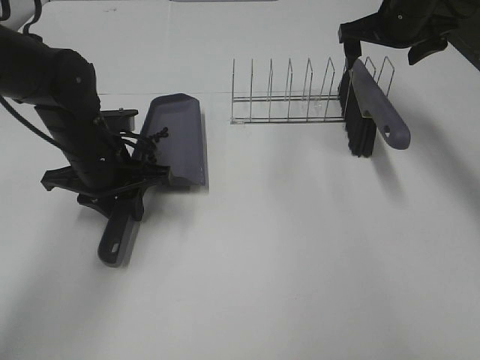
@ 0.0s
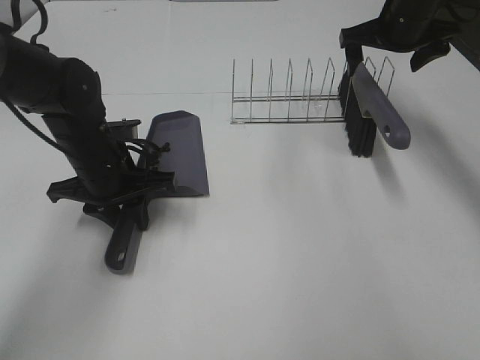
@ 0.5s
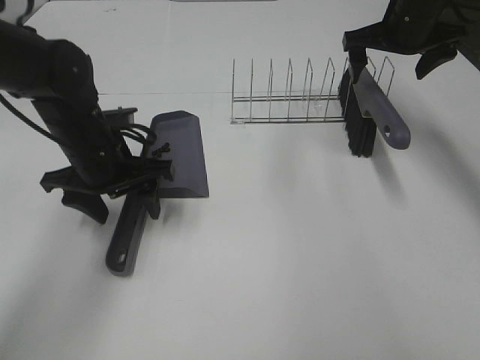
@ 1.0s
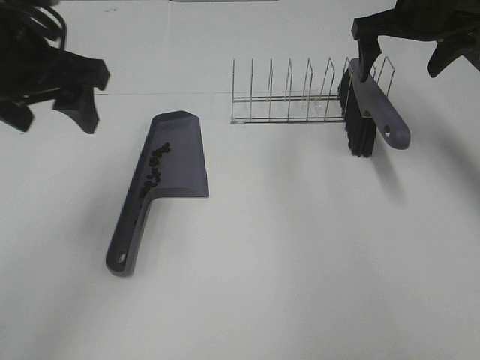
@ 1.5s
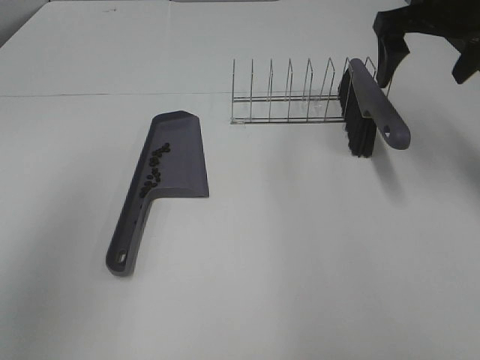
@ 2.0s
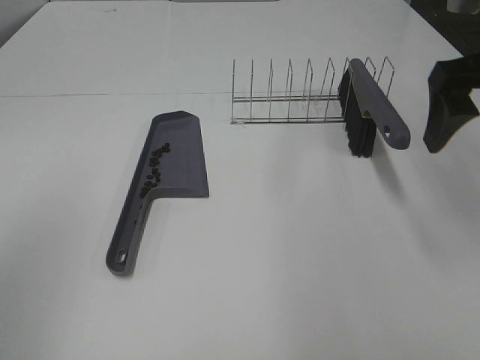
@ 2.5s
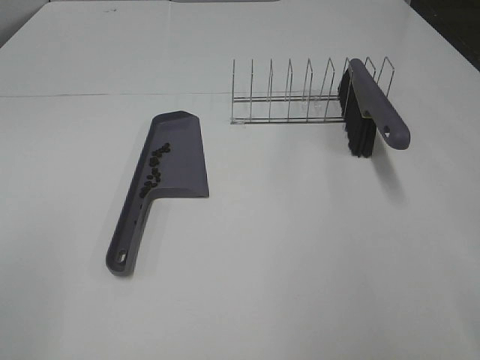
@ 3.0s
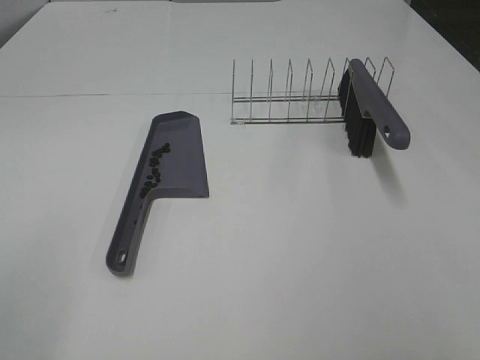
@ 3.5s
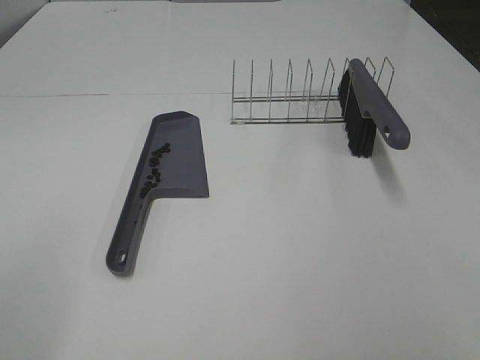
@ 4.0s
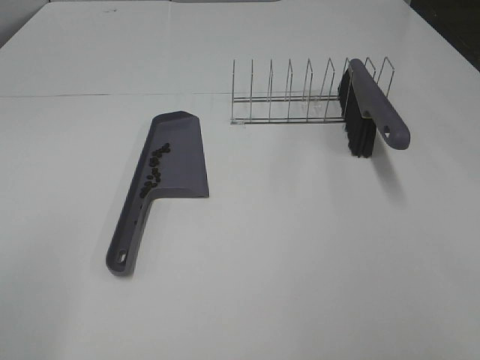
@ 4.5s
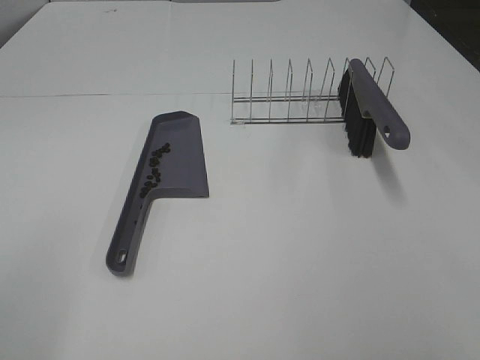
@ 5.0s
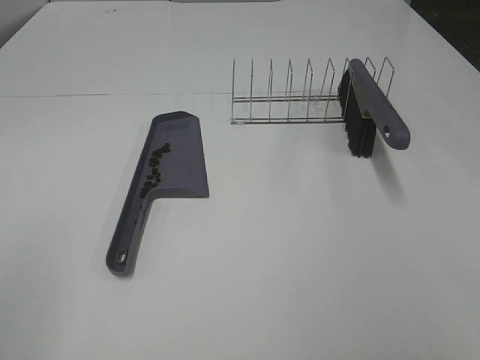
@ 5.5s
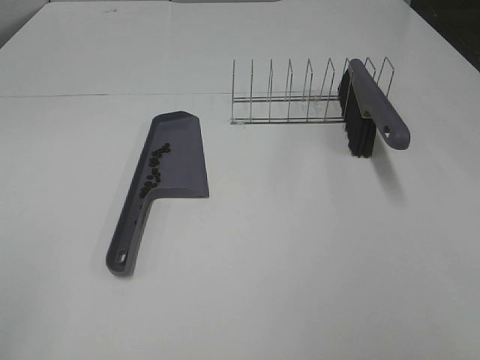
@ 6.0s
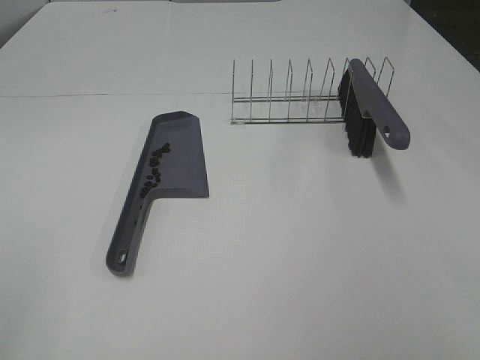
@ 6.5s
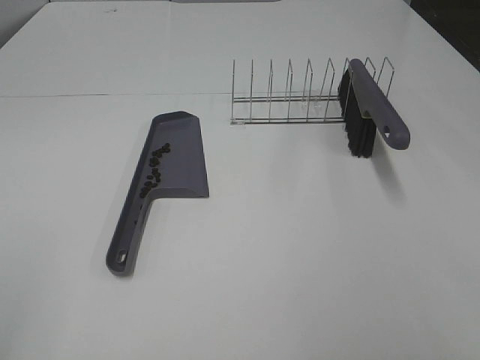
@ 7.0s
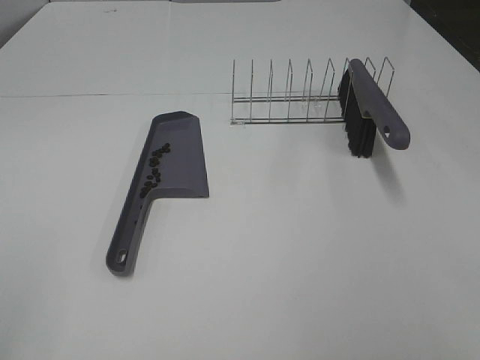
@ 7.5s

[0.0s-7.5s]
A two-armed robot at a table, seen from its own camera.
Task of the whole recording: Sweep Coffee Bean.
0.0s to 2.0s: The left gripper is displaced upward and backward by roughly 35 cm, and opens up. The right gripper heads backward and upward, covering some 10 cm.
2.0s to 4.0s: The right gripper goes about 40 cm backward; the left gripper moves downward and backward, about 15 cm.

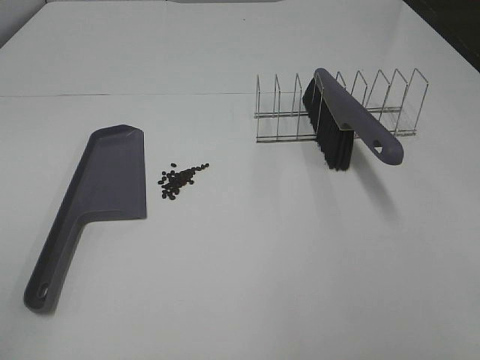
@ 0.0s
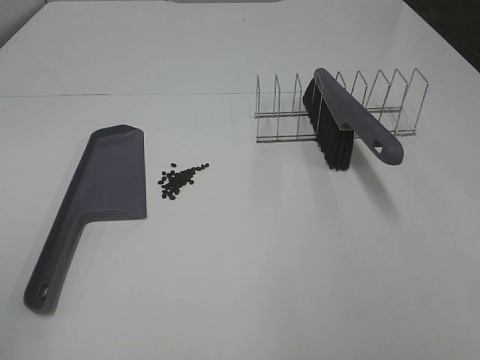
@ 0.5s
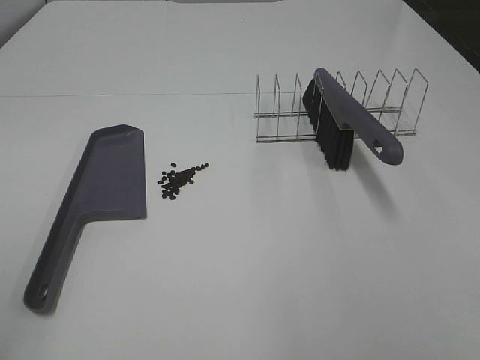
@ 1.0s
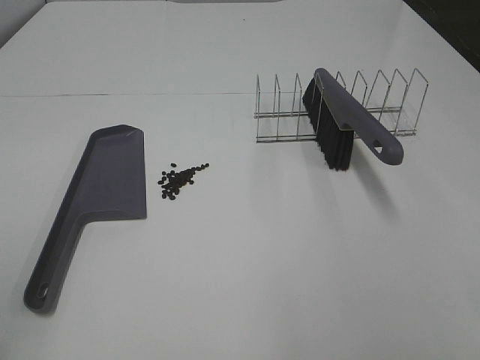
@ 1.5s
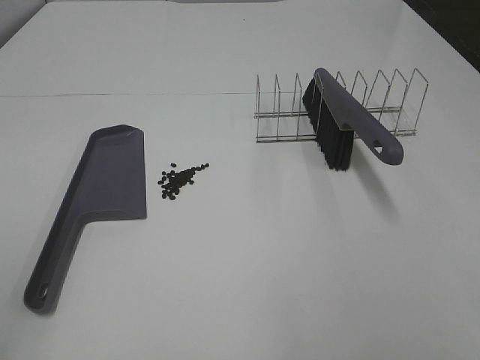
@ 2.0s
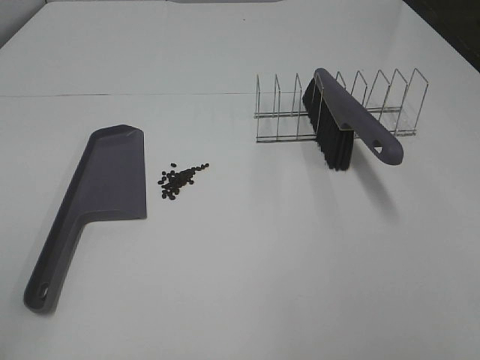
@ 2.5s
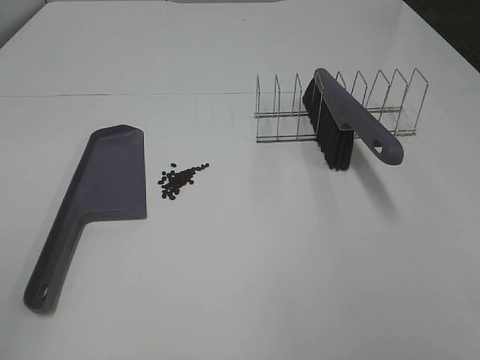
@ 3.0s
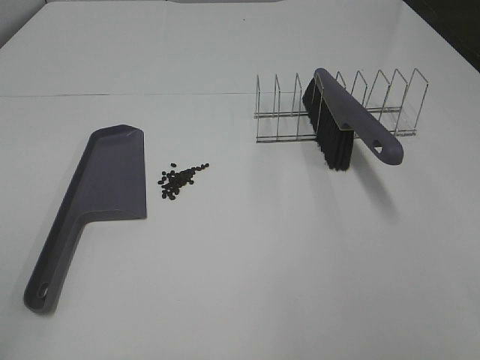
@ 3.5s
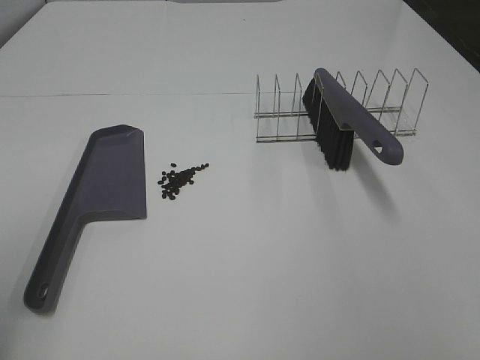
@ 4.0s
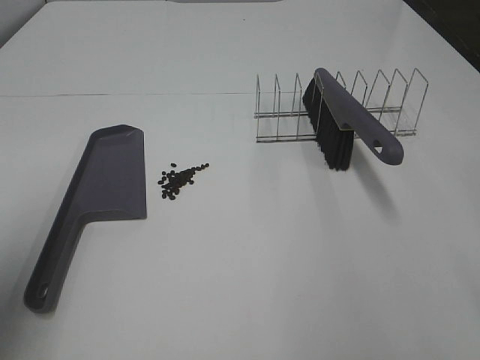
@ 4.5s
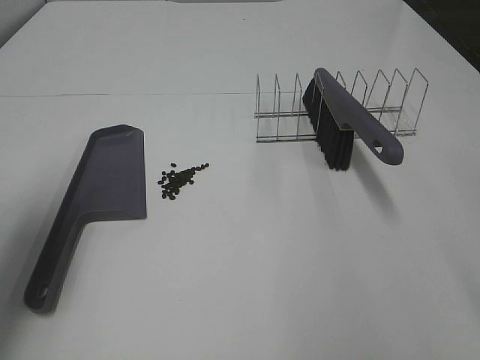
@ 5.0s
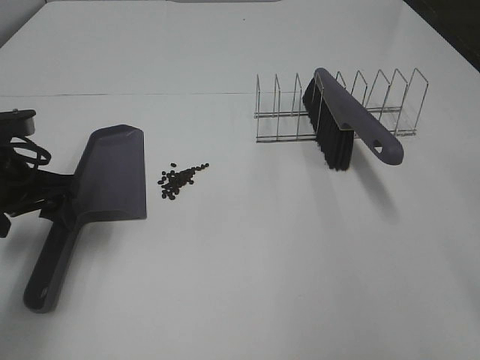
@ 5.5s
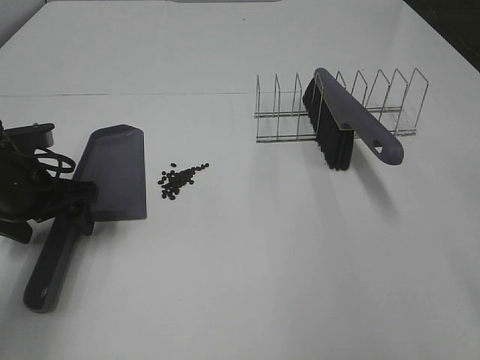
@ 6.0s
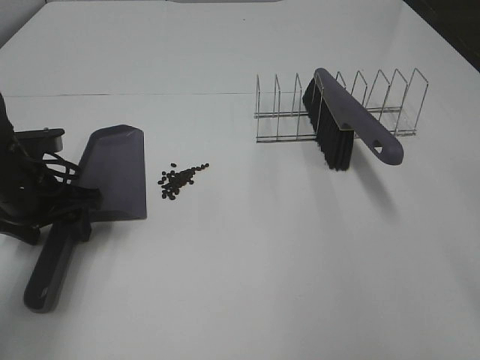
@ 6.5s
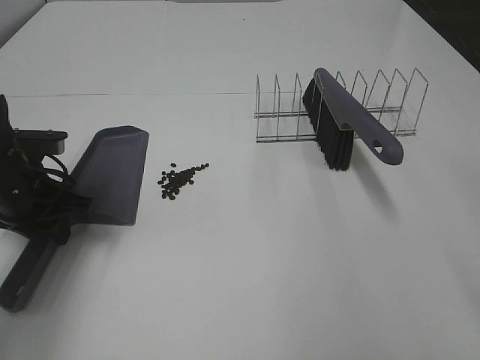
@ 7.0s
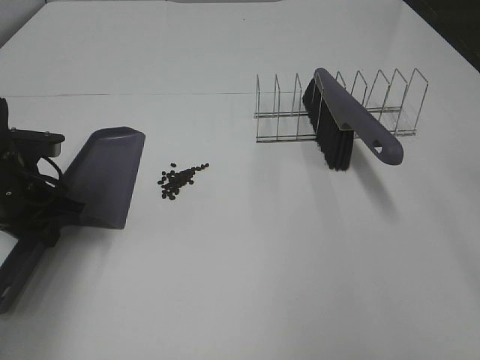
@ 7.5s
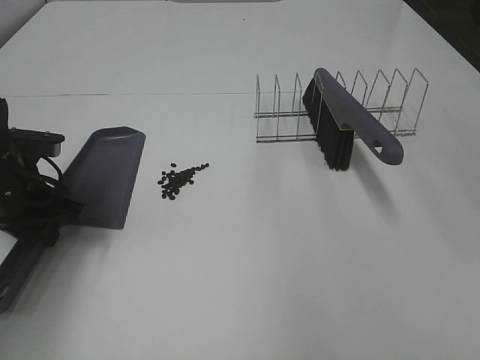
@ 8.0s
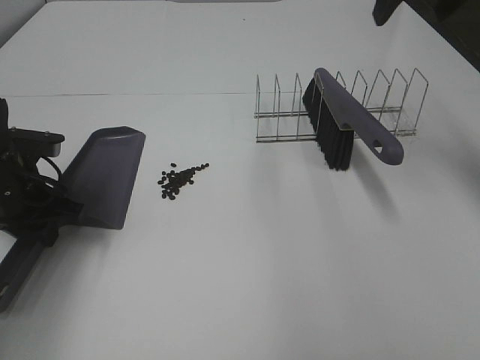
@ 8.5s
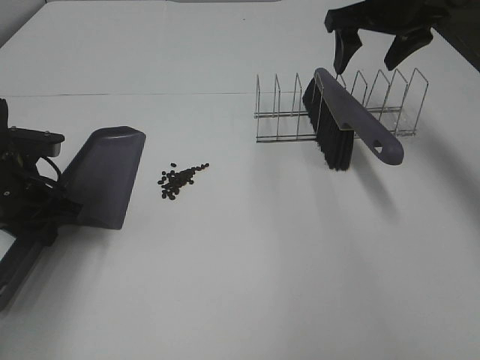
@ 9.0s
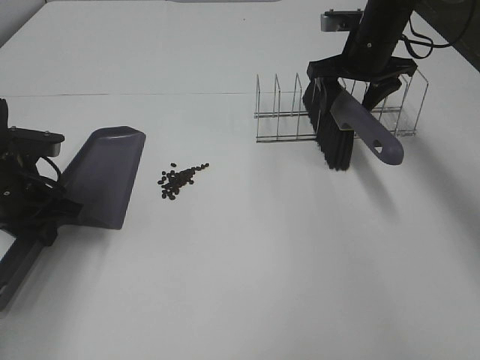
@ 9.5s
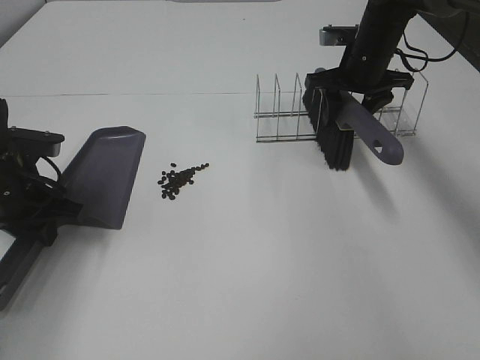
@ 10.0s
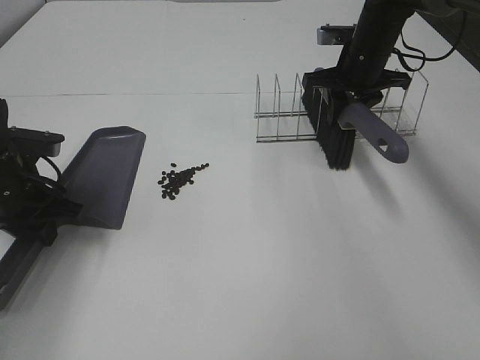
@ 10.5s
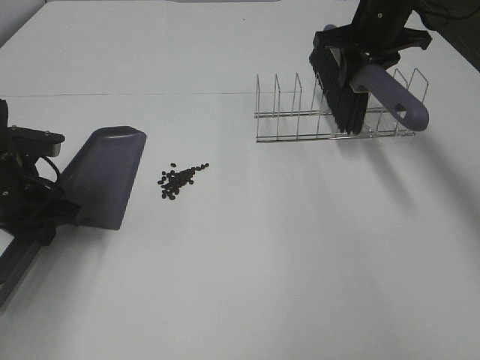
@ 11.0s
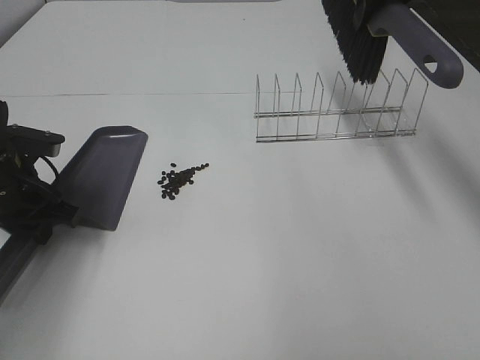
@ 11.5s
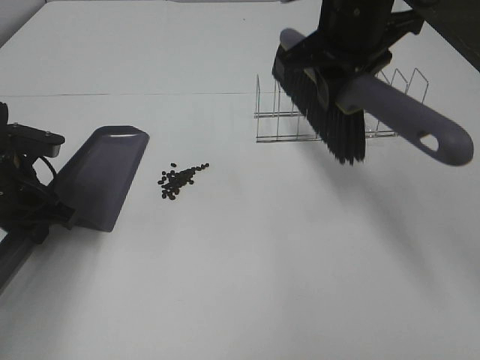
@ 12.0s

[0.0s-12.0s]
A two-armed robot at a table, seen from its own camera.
Task of the whole recording: Sweep Coffee Bean.
Step, 0.0s to 7.0s: Left hand: grab the dustpan.
Step, 7.5s to 10.0s: Right hand:grab the broom.
0.0s to 2.0s: Both grippers stay put.
4.0s to 6.0s: The left gripper shifts some 30 cm forward and downward.
6.0s to 8.0s: The left gripper closes its fingers.
8.0s to 10.0s: The right gripper is displaced forward and downward by approximately 35 cm, and closes.
10.0s to 12.0s: The right gripper moves backward, upward and to the left, about 20 cm, and closes its fingers.

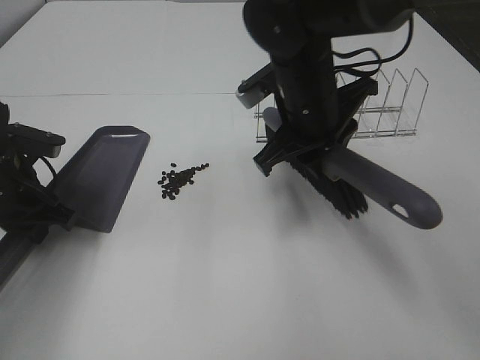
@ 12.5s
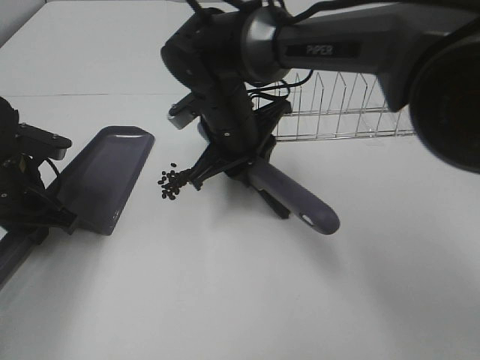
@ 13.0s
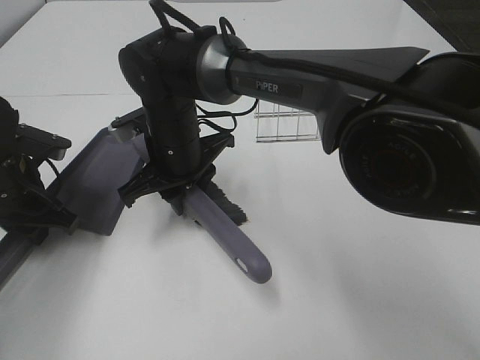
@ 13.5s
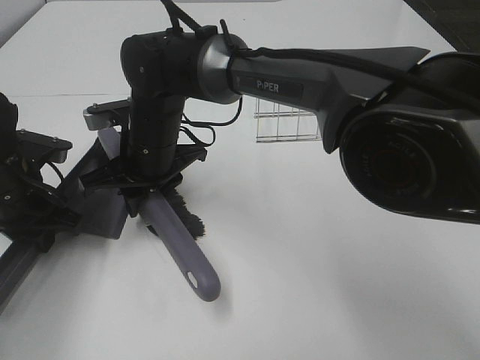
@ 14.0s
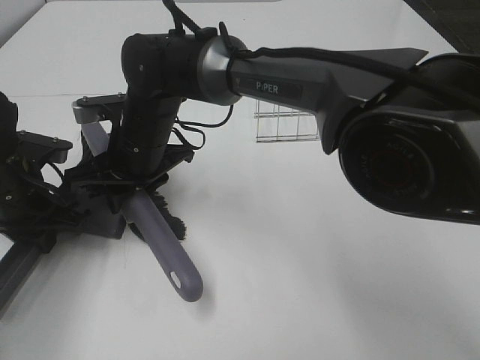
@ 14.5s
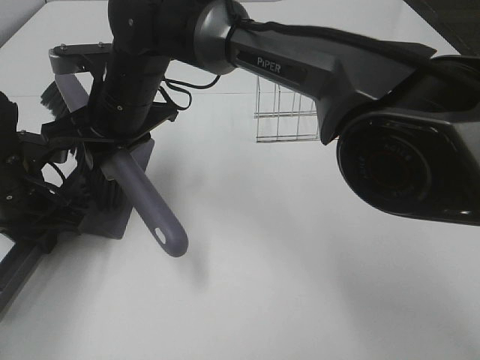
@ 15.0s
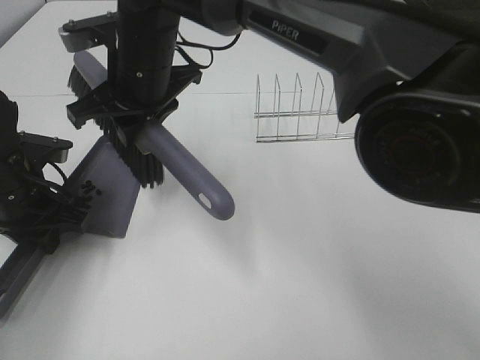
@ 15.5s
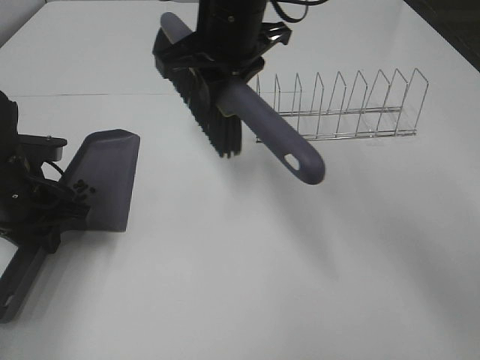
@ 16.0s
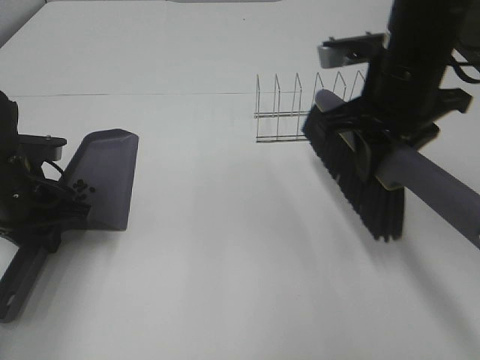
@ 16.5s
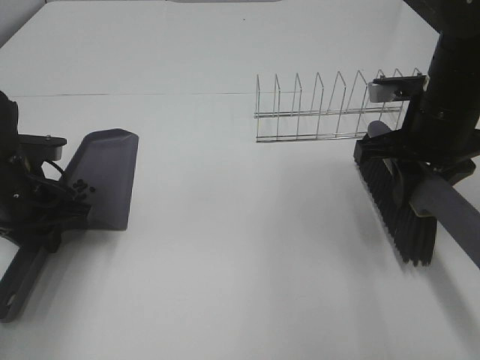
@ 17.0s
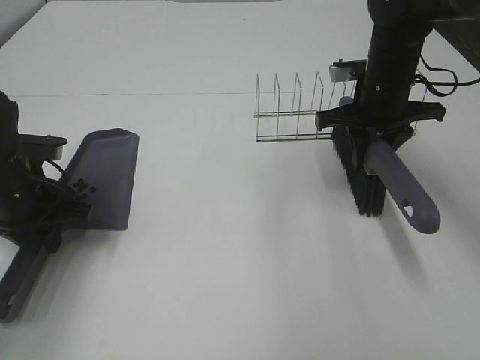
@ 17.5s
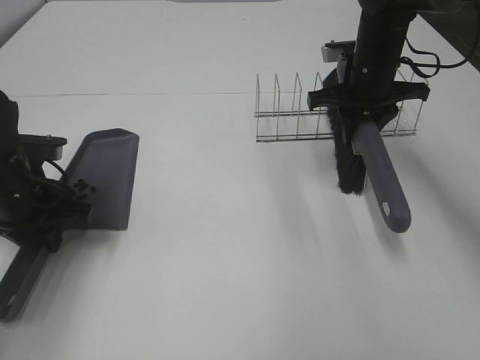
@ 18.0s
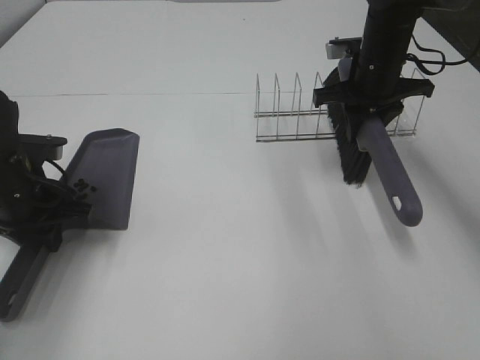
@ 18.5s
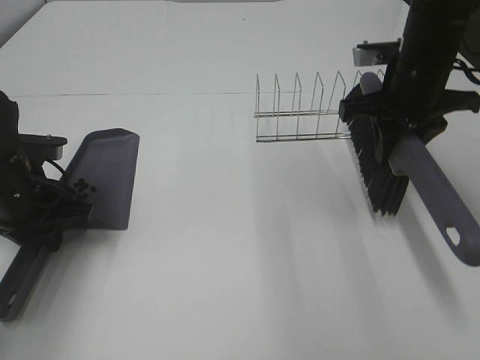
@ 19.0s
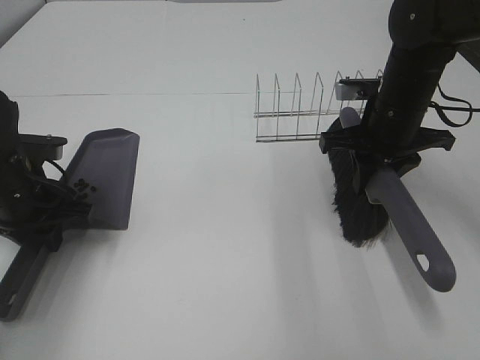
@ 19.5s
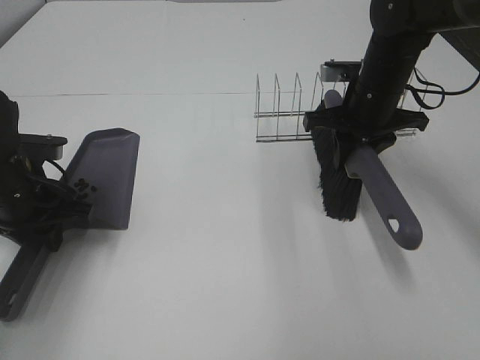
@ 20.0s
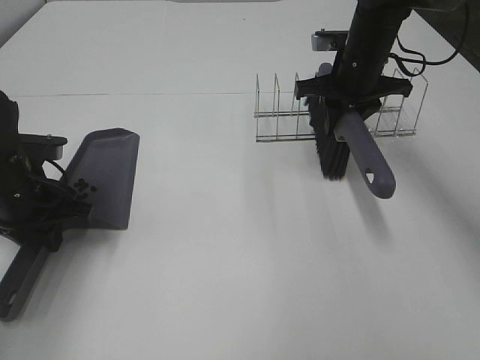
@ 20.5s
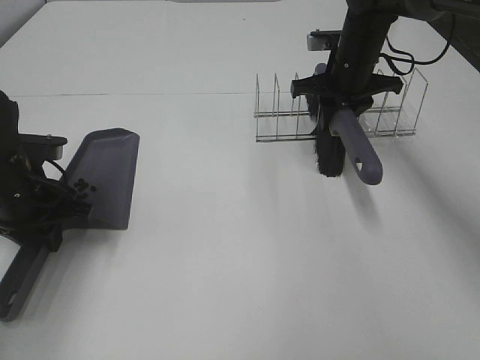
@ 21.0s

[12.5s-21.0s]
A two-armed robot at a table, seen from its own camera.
Task of the whole recording: Sweep Coffee Bean.
Step, 12.5s to 15.0s: Right hand:sweep the coffee beans into the dustpan.
12.5s to 14.5s: The right gripper moves to the left, some 20 cm.
14.5s to 16.5s: The right gripper heads to the right and upward, covering some 30 cm.
16.5s to 19.0s: The right gripper shifts some 5 cm forward.
19.0s to 21.0s: The right gripper heads forward, covering some 10 cm.
